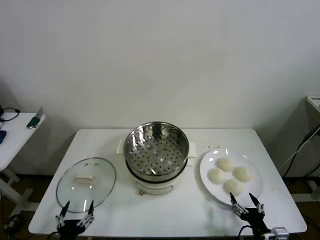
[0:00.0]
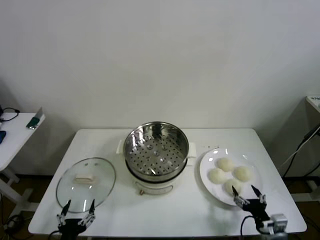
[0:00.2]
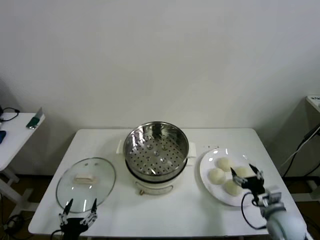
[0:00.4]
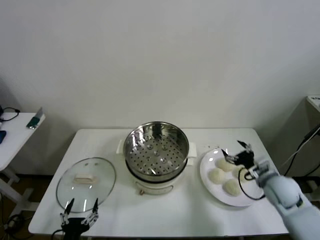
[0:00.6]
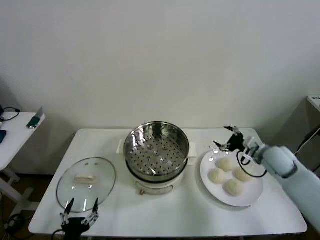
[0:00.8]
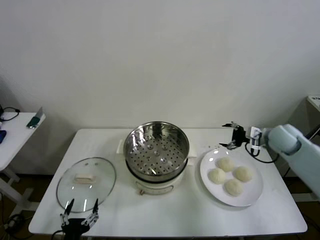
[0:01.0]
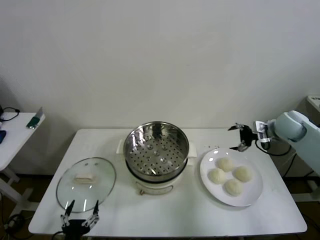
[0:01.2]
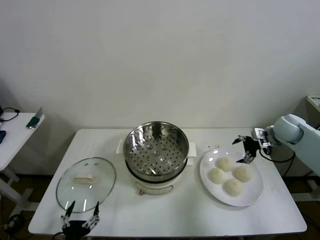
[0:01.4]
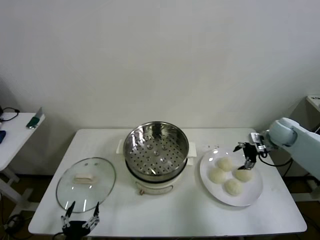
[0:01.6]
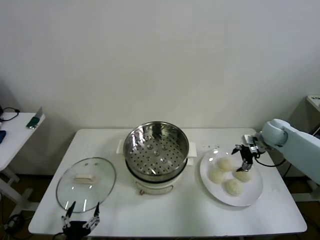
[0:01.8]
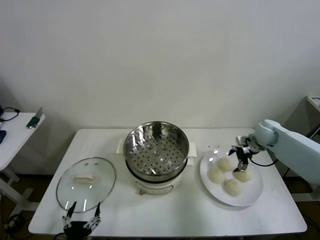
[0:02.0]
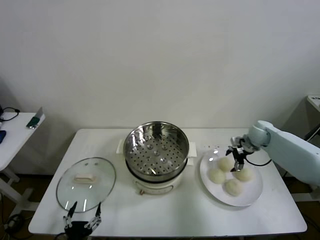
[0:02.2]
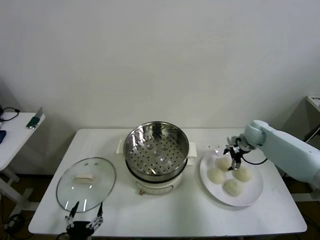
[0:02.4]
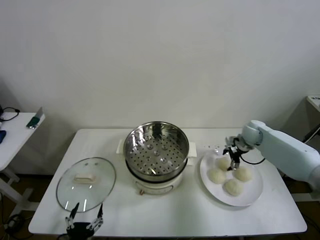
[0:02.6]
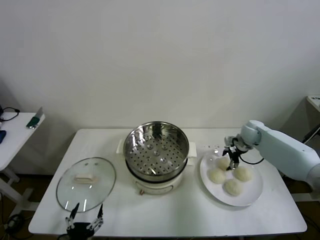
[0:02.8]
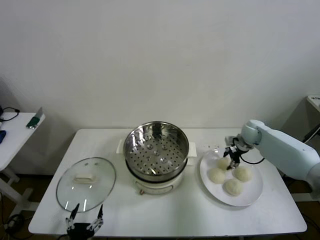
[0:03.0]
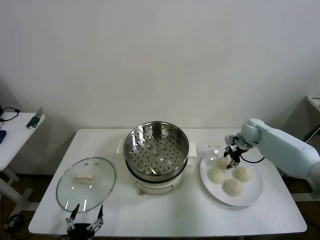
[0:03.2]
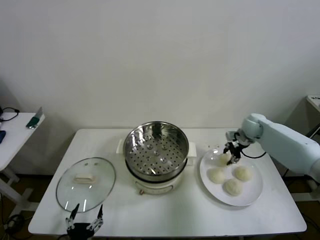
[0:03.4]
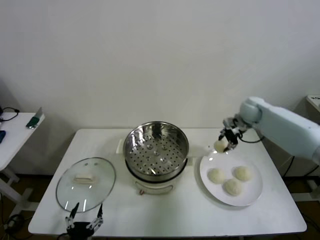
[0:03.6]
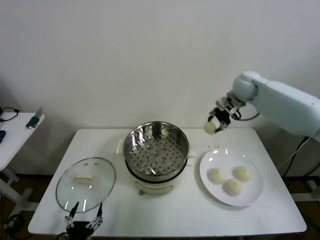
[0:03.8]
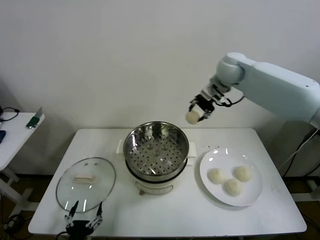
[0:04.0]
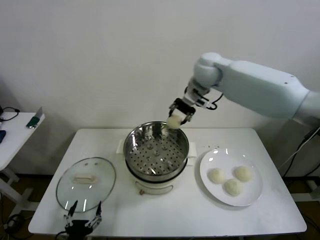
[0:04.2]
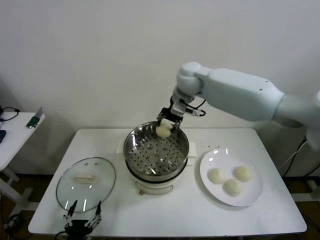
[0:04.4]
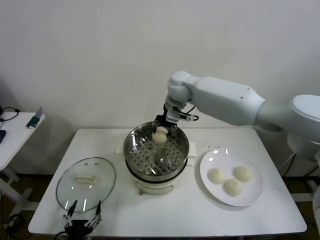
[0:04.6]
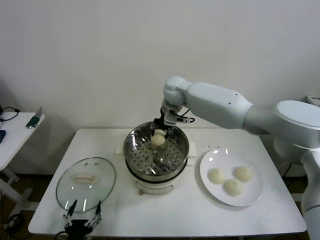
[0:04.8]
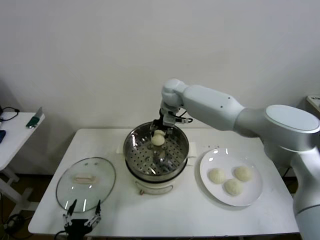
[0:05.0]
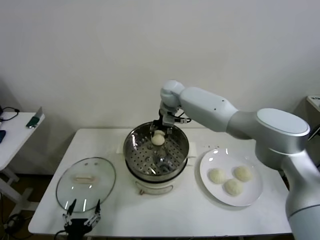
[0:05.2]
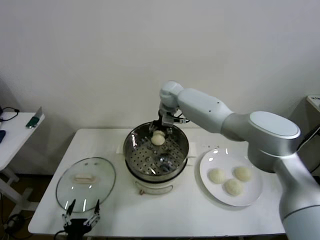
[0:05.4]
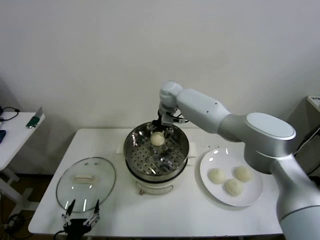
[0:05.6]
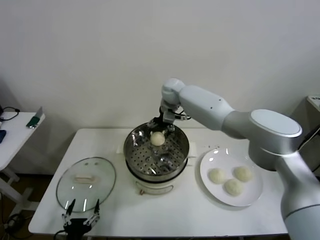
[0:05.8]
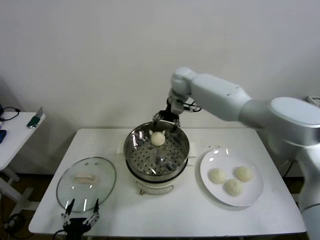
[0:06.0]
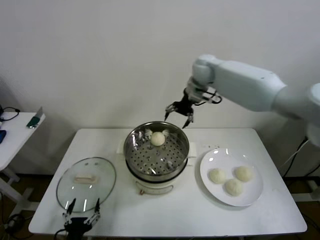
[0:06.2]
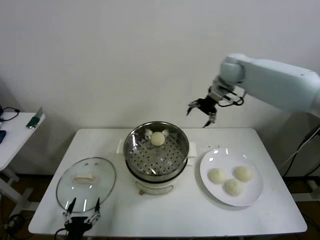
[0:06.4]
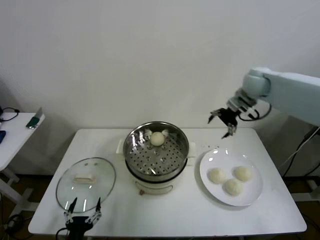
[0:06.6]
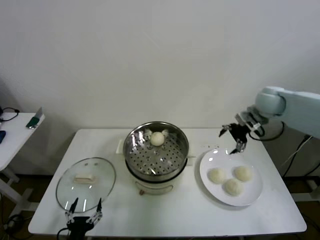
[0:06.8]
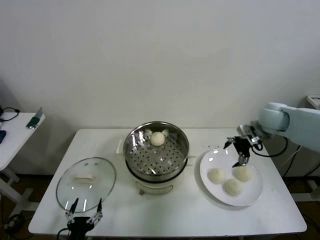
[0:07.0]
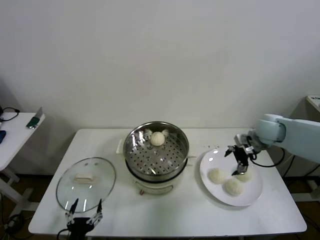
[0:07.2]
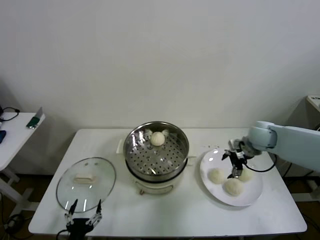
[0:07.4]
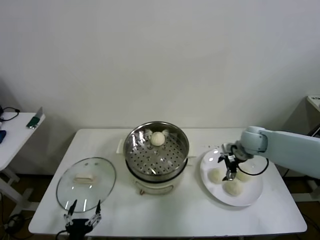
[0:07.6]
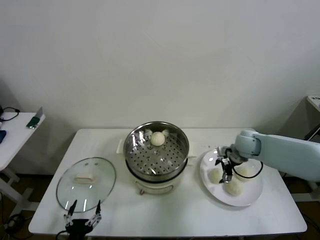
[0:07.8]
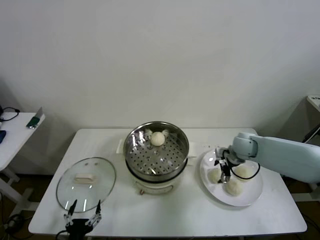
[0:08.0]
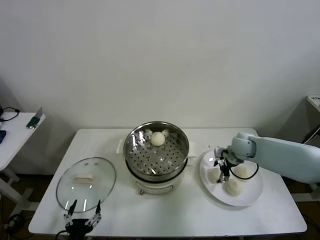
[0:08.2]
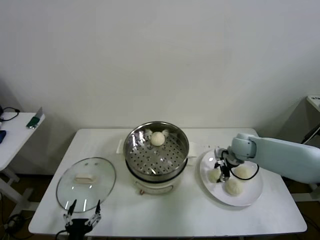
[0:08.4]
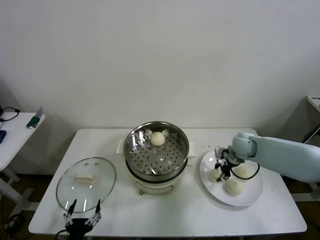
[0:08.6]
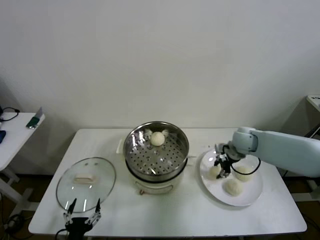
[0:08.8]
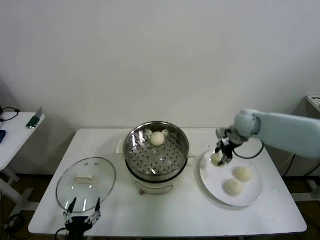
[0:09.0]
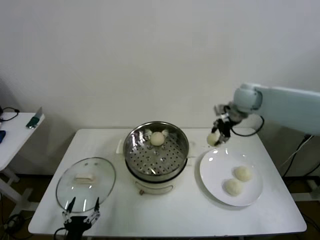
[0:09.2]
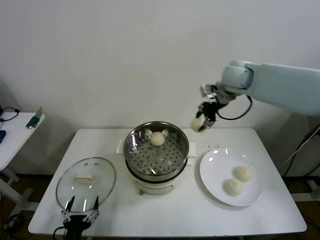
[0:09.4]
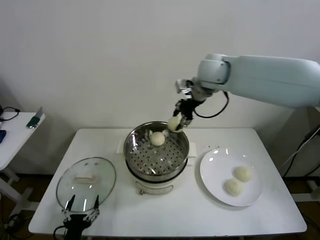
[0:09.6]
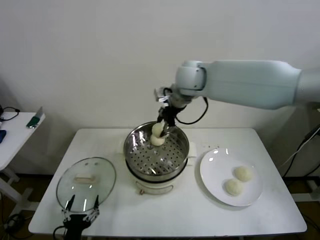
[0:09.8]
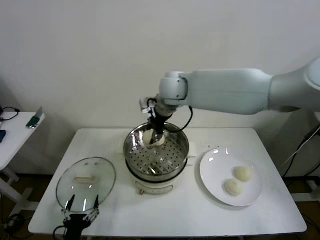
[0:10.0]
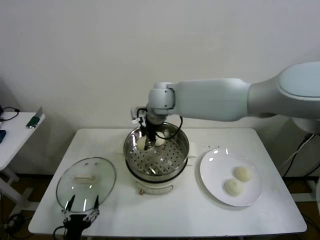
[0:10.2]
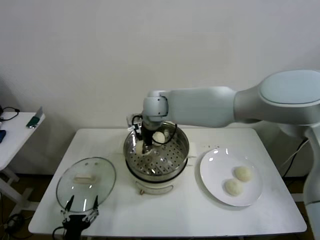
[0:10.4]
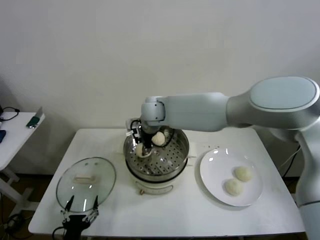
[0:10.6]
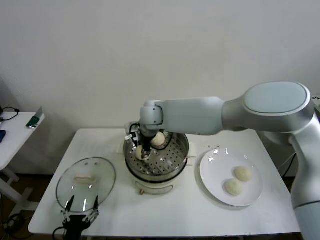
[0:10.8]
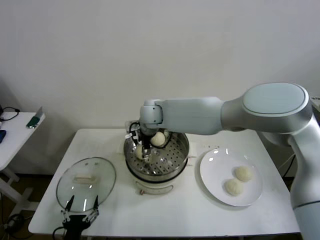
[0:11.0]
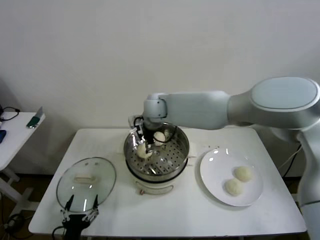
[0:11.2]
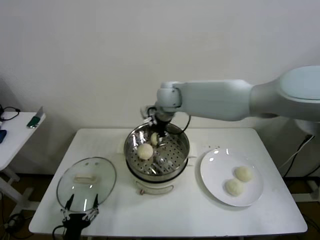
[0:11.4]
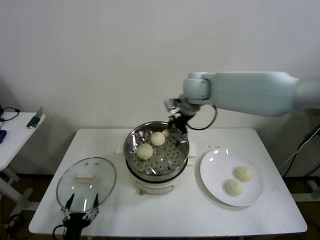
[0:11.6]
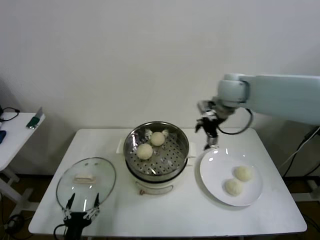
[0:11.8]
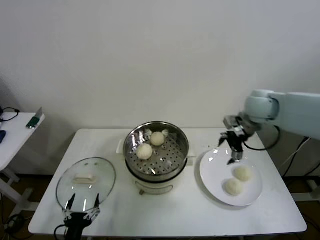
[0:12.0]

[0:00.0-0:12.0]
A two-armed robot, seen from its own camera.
Step, 0.0 to 2.8 s: Grasp the baozi in the plate with right gripper.
Step, 3.2 to 5.8 s: Place the baozi on the steamer with right gripper.
Step, 6.0 to 8.6 s: Grasp the baozi in the plate with right gripper.
Step, 8.8 to 11.2 s: Place the baozi on the steamer with right gripper.
1.6 to 3.0 s: The right gripper heads to the left, forward and downward, covering about 10 cm, and closes.
3.0 to 4.4 s: The right gripper shifts approximately 35 cm to the left and upward.
4.4 to 6.0 s: The right gripper is displaced forward by roughly 5 cm, reaches about 10 cm downward, then returns, and opens up.
6.0 to 7.6 s: The right gripper shifts about 30 cm to the right, downward and backward.
7.6 to 9.0 s: The right gripper is displaced upward by approximately 10 cm, and closes up.
9.0 to 10.4 s: The right gripper travels to the left by some 30 cm.
10.4 to 12.0 s: The right gripper heads to the right, covering roughly 35 cm, and opens.

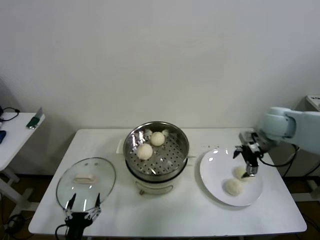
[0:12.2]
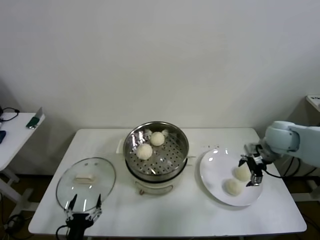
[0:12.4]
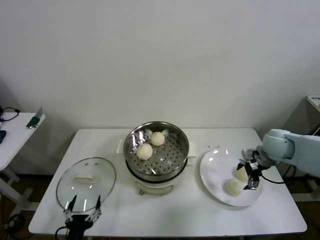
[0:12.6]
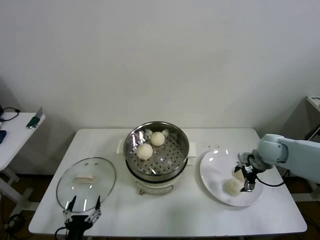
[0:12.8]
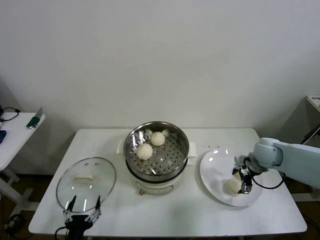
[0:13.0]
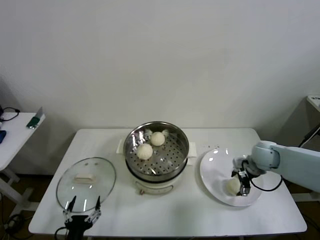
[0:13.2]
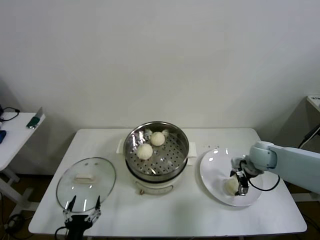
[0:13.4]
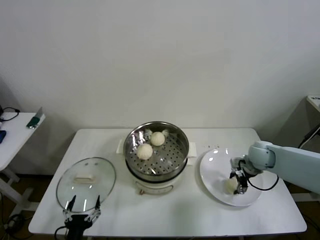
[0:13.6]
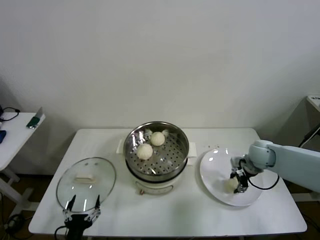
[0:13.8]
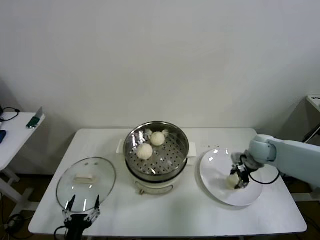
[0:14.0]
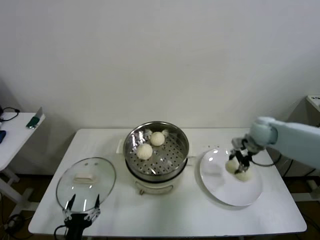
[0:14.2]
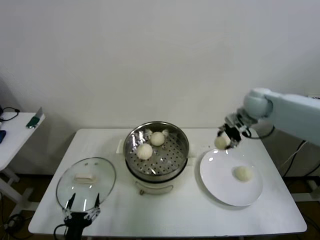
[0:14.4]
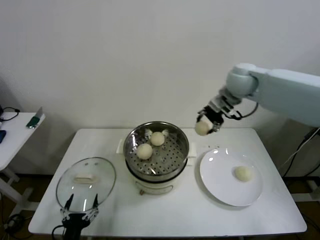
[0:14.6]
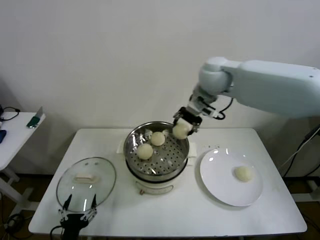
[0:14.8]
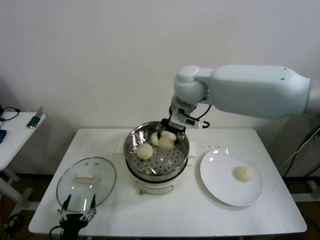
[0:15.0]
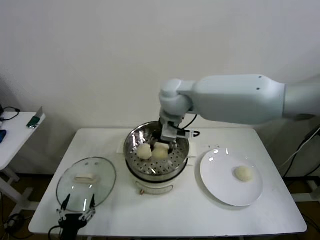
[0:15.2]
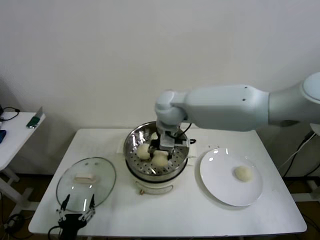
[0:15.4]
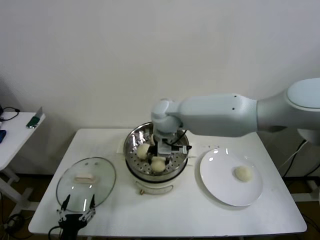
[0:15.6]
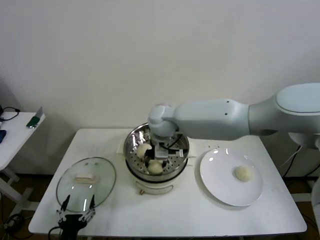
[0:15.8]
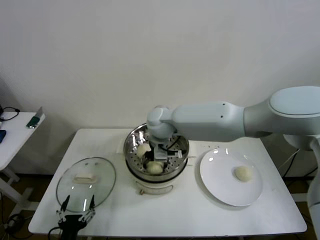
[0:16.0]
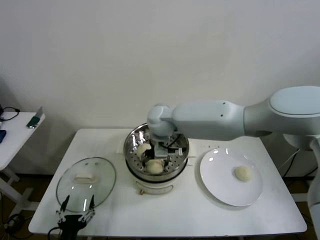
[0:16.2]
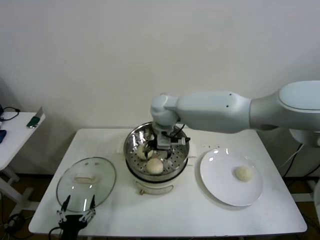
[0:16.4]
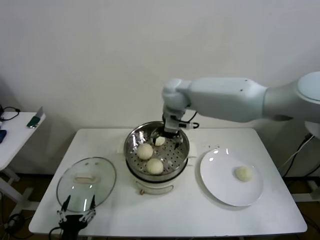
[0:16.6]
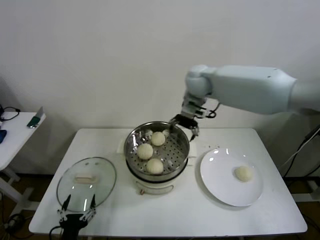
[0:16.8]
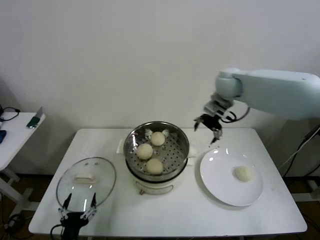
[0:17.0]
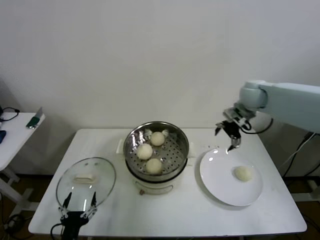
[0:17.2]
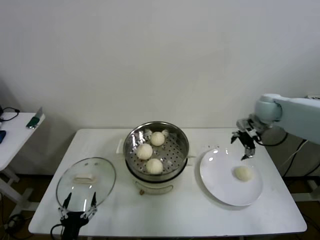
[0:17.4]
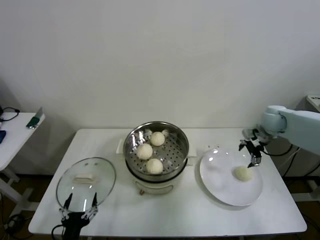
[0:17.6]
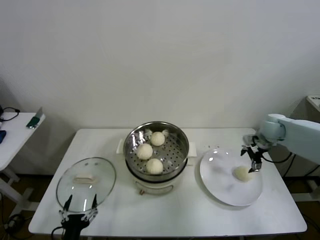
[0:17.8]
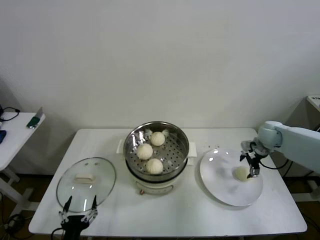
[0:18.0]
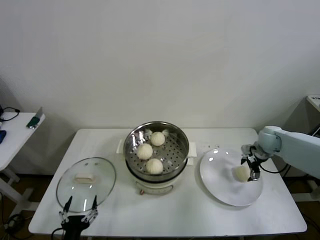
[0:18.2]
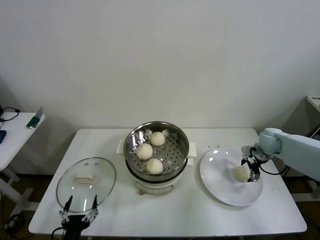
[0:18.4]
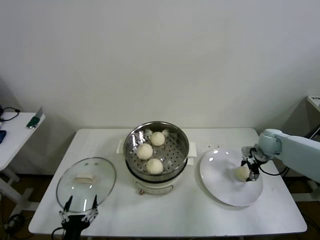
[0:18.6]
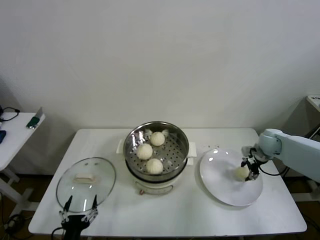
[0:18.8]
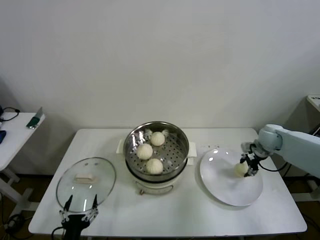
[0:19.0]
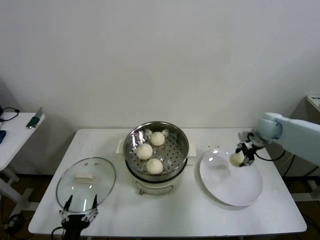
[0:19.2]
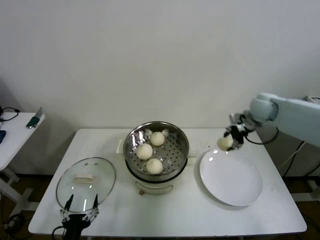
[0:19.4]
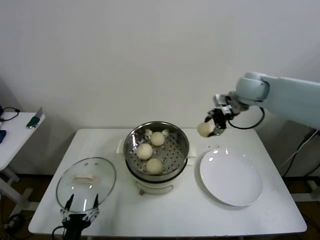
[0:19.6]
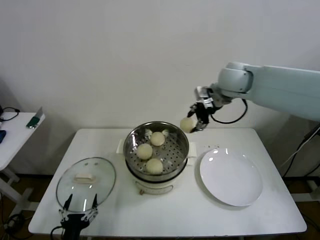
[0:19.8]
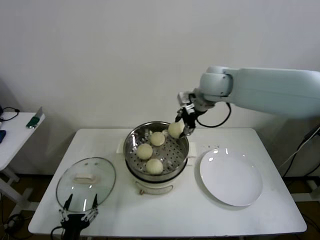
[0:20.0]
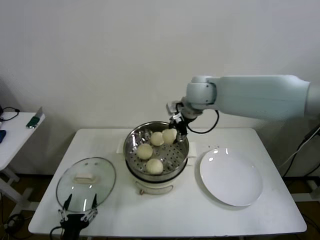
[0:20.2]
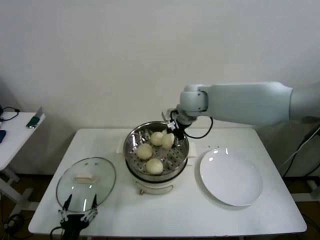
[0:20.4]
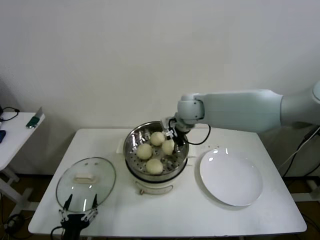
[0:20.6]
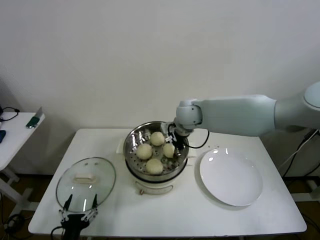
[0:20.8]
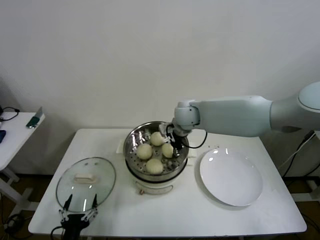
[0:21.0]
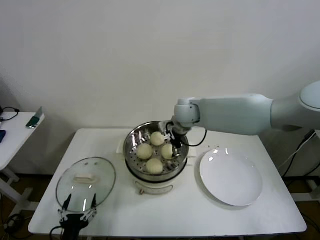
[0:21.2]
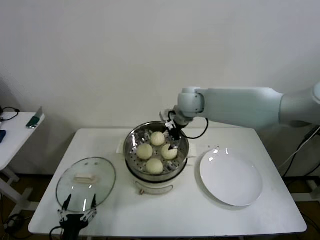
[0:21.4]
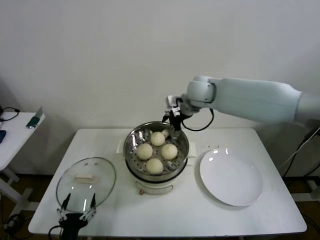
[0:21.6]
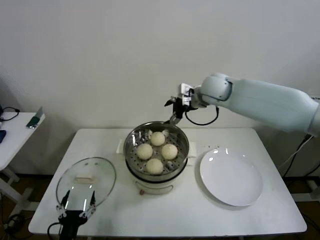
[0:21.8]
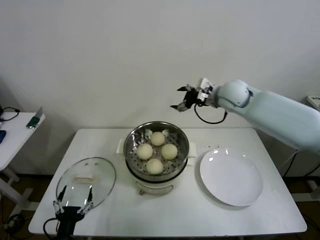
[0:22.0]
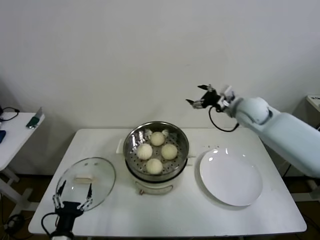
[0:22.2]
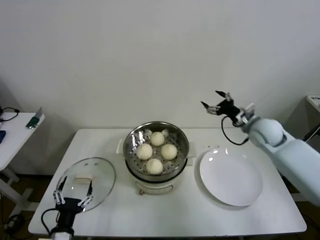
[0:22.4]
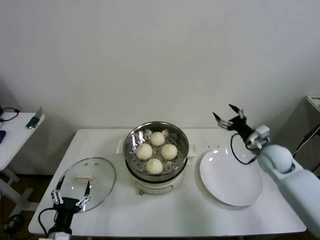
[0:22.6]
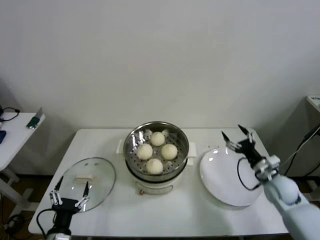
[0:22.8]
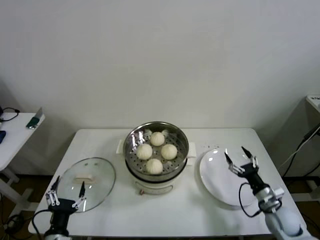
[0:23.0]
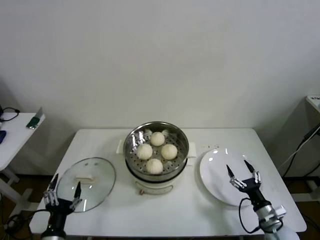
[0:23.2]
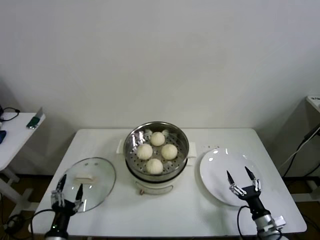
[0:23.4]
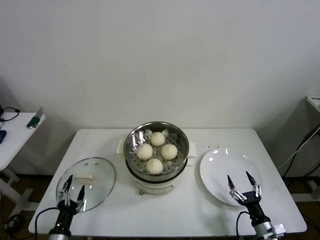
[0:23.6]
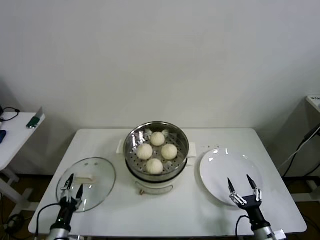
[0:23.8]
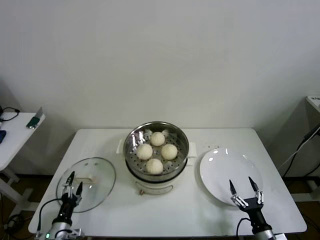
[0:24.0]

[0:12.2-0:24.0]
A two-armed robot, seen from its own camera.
Step, 12.2 to 13.8 s: Grasp the baozi in the plate with right gripper.
Step, 14.2 to 16.4 s: Place the baozi on the steamer with right gripper.
Step, 16.6 to 18.8 s: Grasp the baozi in the plate with right gripper.
Step, 19.0 to 21.4 s: Place the baozi on the steamer with right gripper.
12.2 to 13.6 s: The right gripper goes approximately 15 cm downward, and closes up.
13.6 to 15.2 s: The right gripper shifts roughly 40 cm to the left and upward.
15.2 to 16.6 s: The right gripper moves forward, some 5 cm, goes downward and returns, some 10 cm each way, and opens.
16.6 to 18.2 s: The right gripper is displaced to the right and downward by about 40 cm.
18.2 to 19.6 s: The right gripper goes approximately 25 cm upward and to the left, and closes.
19.6 to 21.0 s: The right gripper heads to the left and downward, covering approximately 20 cm.
21.0 to 22.6 s: The right gripper moves to the right and downward, approximately 30 cm, and opens.
22.6 to 24.0 s: The left gripper goes some 10 cm downward and to the left; the right gripper goes roughly 35 cm backward and downward.
